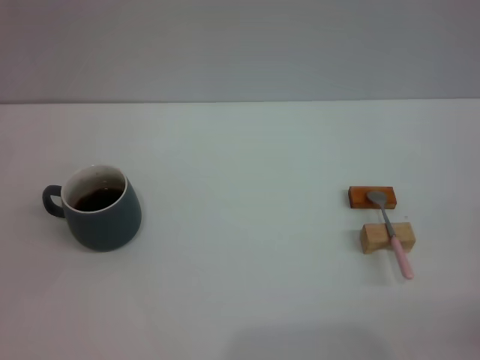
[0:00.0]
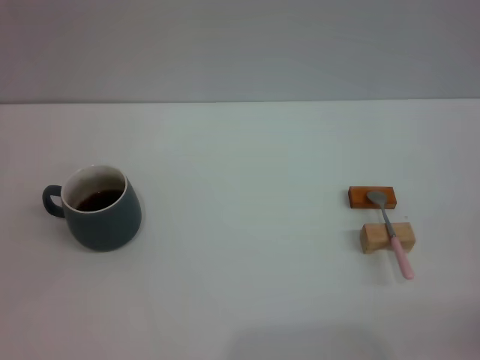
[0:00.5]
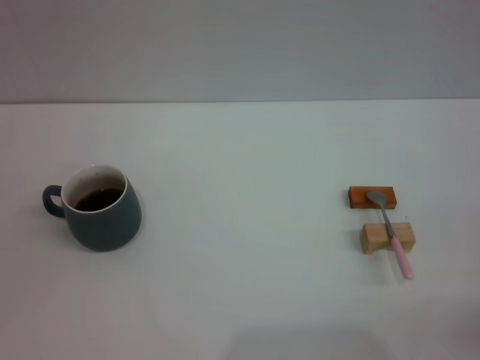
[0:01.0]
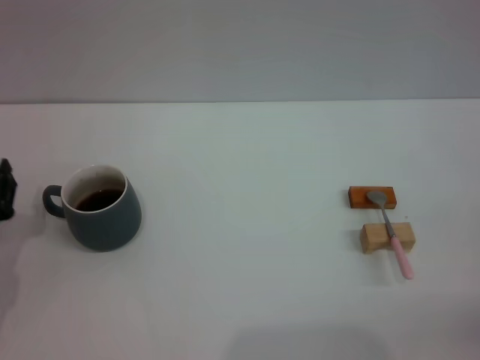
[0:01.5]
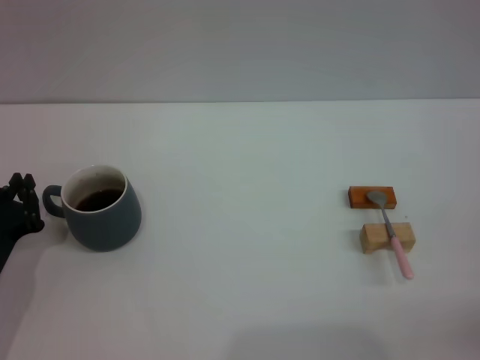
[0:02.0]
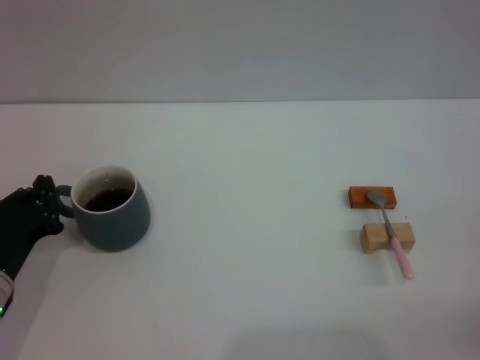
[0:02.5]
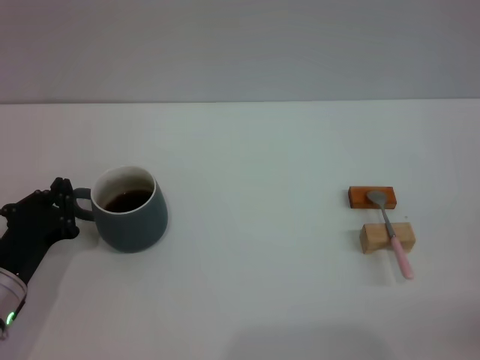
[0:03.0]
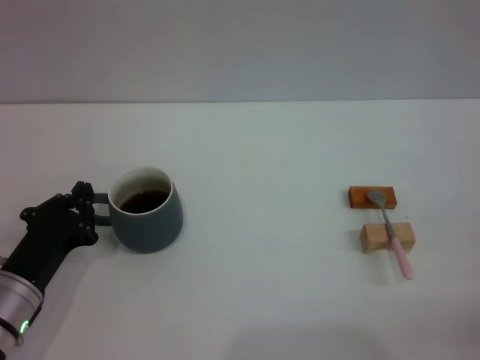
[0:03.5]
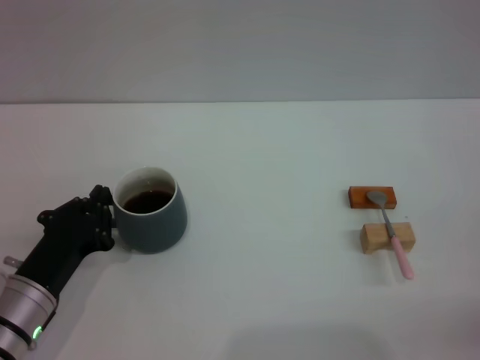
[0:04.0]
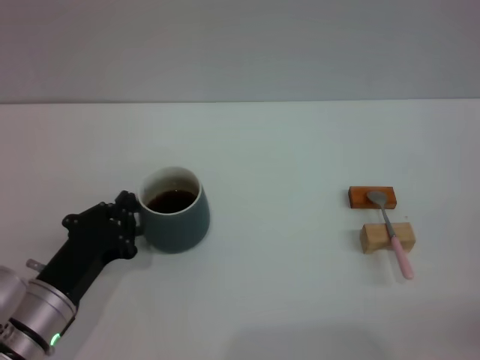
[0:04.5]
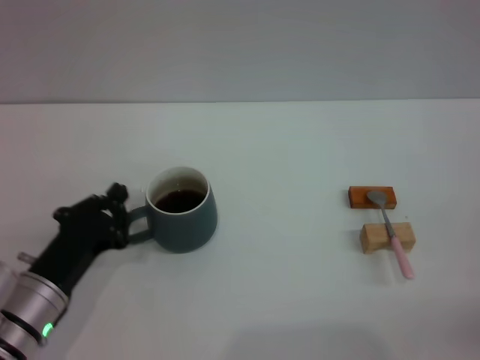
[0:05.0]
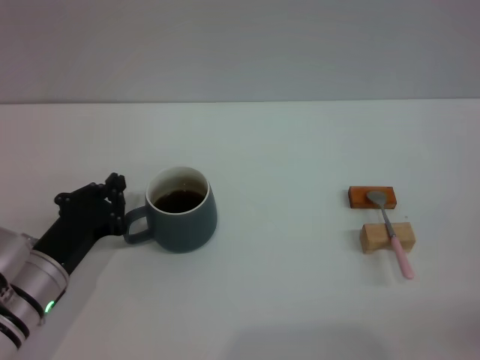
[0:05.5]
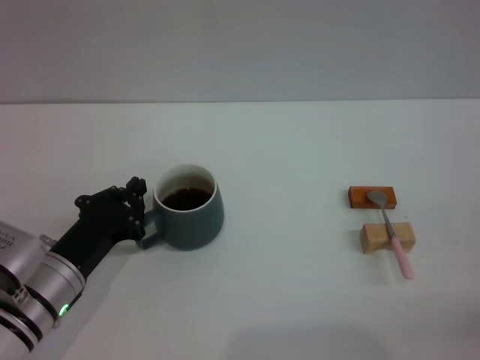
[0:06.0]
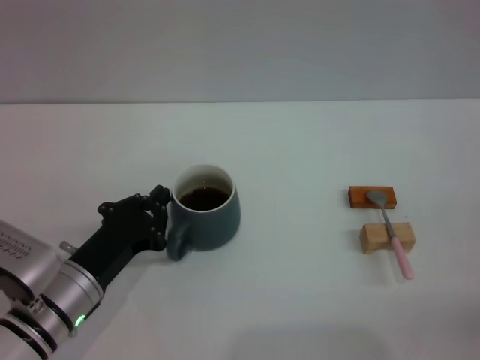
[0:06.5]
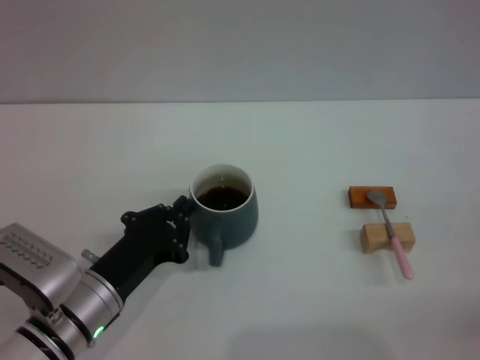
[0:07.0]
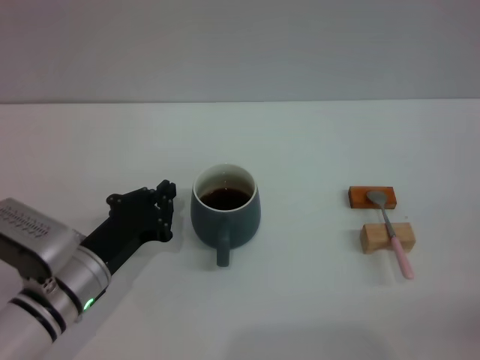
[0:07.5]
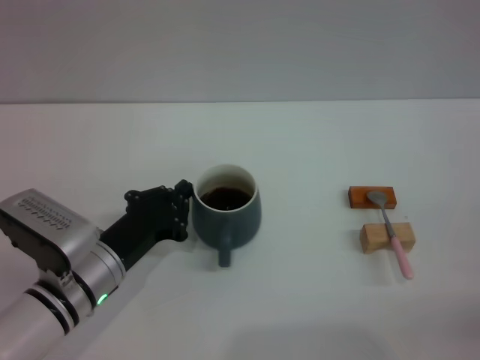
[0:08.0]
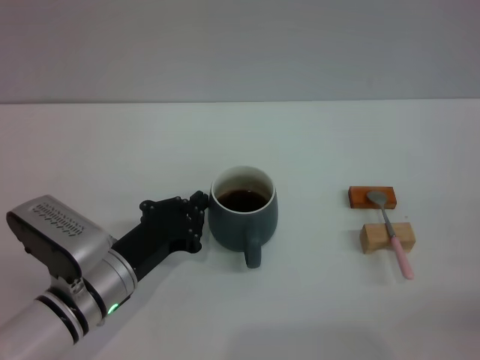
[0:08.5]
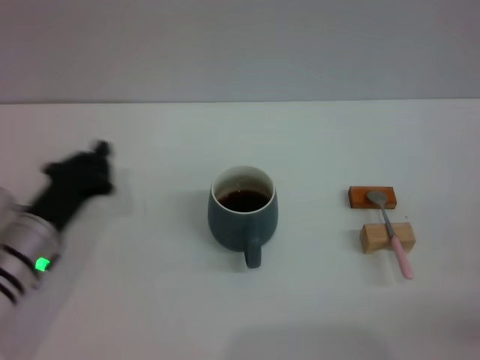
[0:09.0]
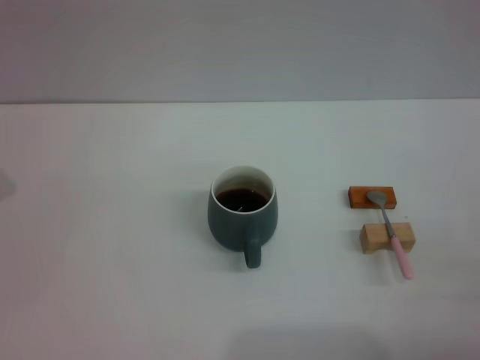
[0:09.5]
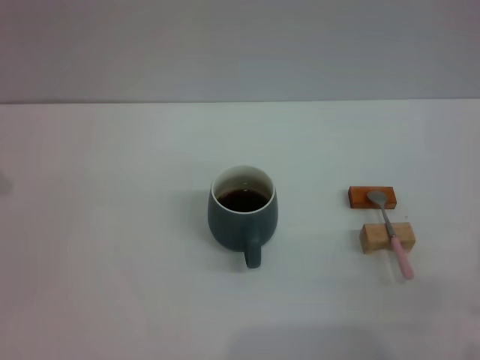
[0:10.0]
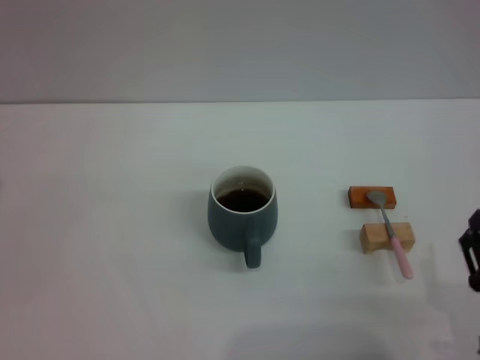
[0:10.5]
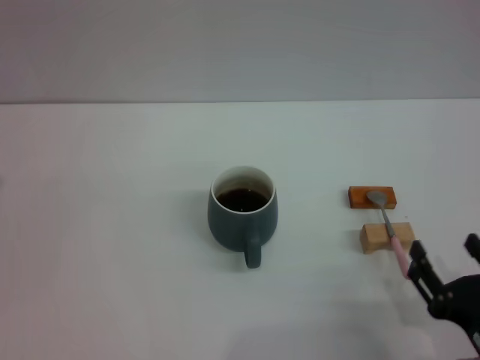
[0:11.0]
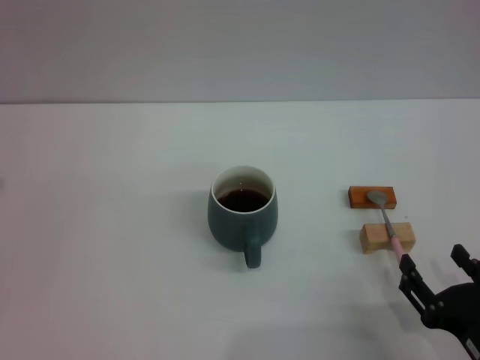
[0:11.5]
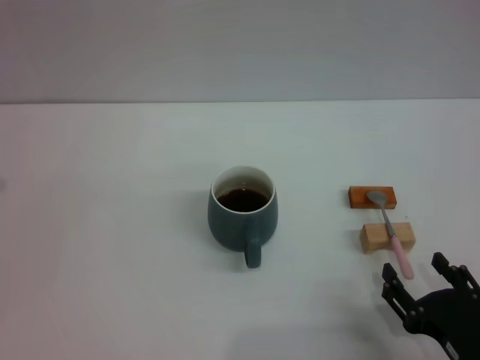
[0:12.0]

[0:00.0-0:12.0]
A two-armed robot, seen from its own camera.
Task of the whole recording: Move the grey cup to the center, lift the pink spoon, stir it three times in the cup, and put the spoon into the cup.
Step, 0.0 to 8.5 s: Move the cup with coffee to the center of view with the left gripper.
0.0 to 2.0 s: The left gripper goes some 10 cm to the right and downward, and closes up.
2.0 to 4.0 s: The left gripper moves to the right, approximately 5 cm.
4.0 to 6.0 s: The grippers make only small movements.
6.0 to 8.0 s: The grippers stay close to where they were, moving slightly.
8.0 to 10.0 s: The left gripper goes some 15 cm to the left. Meanwhile the right gripper heads to the left and backward, covering approximately 15 cm.

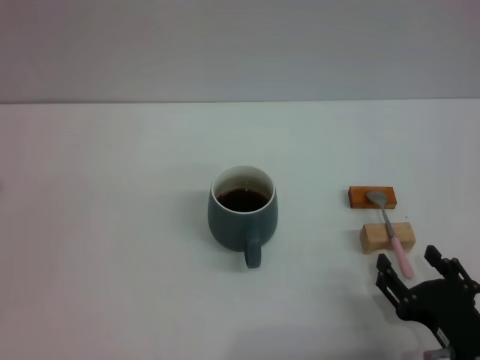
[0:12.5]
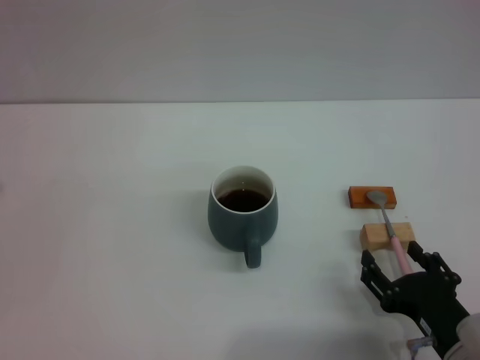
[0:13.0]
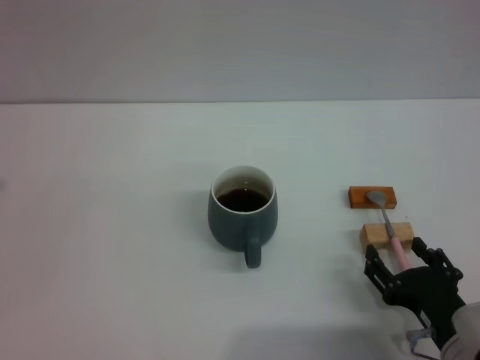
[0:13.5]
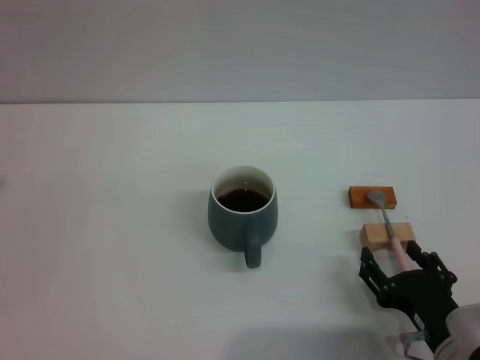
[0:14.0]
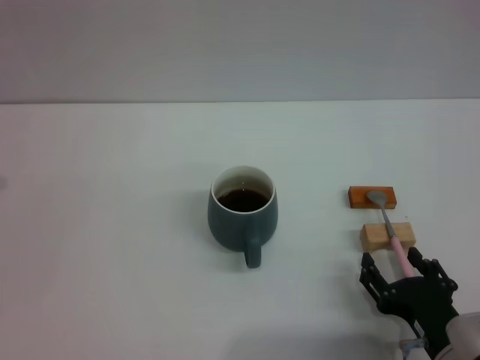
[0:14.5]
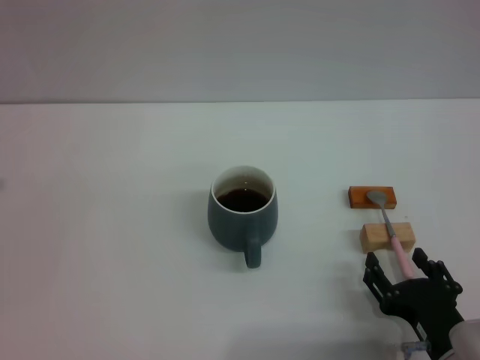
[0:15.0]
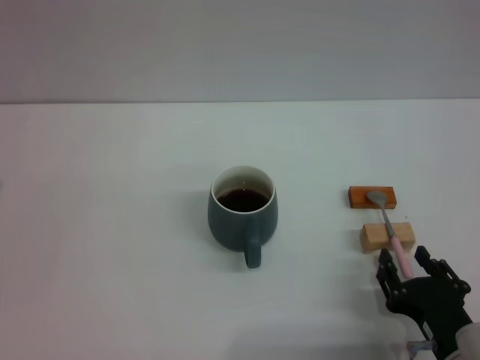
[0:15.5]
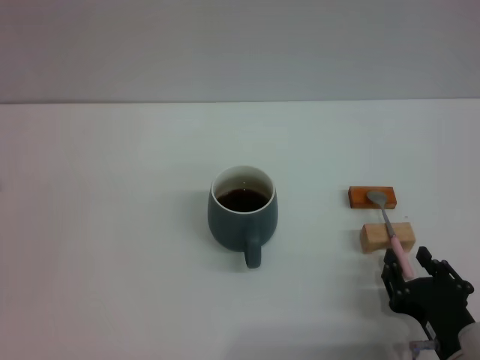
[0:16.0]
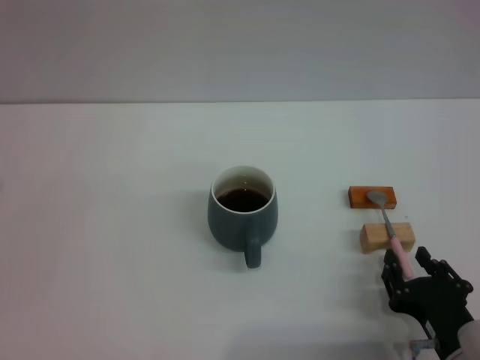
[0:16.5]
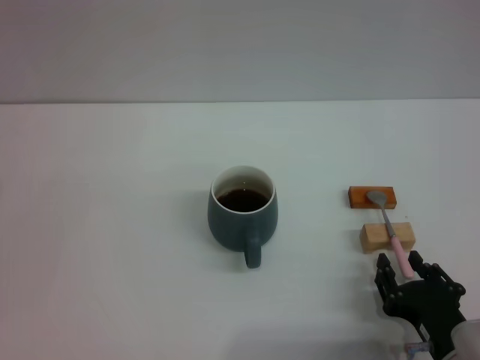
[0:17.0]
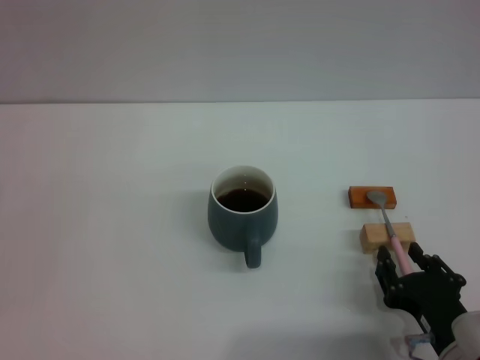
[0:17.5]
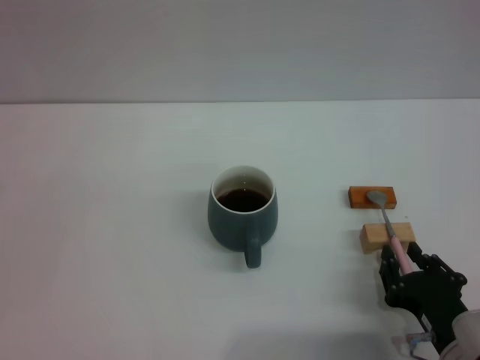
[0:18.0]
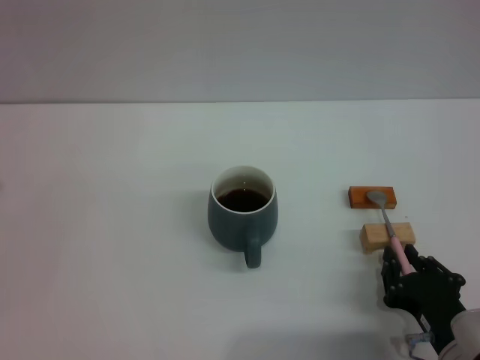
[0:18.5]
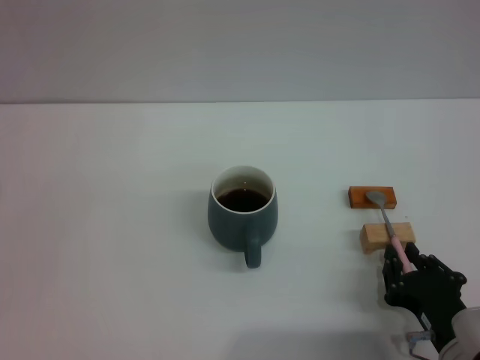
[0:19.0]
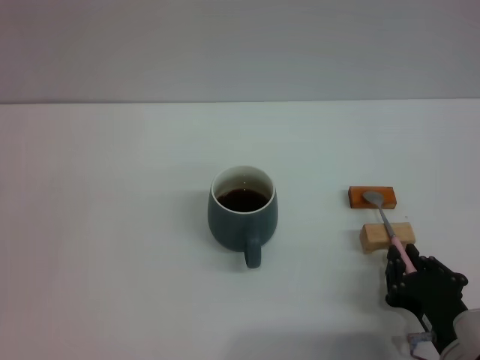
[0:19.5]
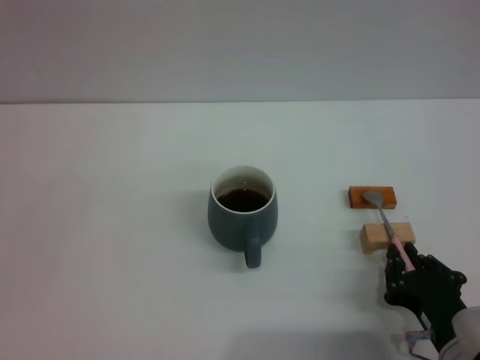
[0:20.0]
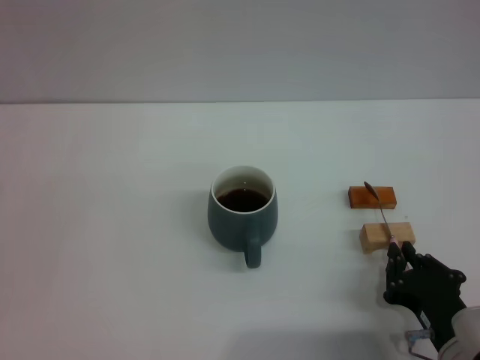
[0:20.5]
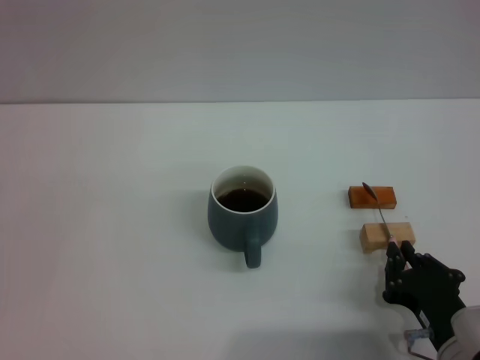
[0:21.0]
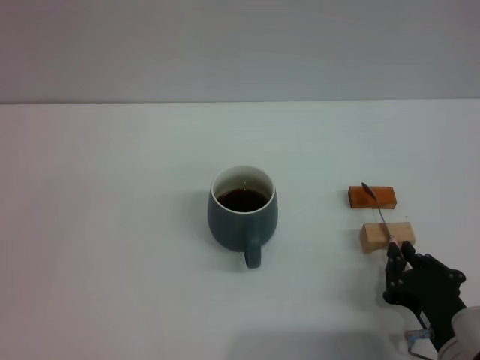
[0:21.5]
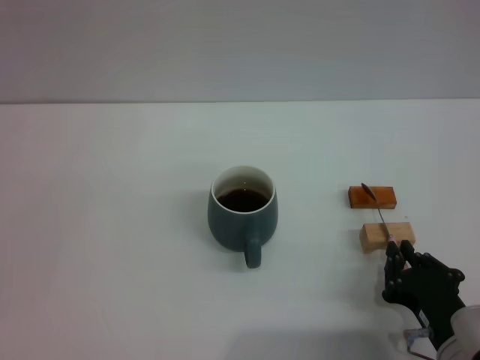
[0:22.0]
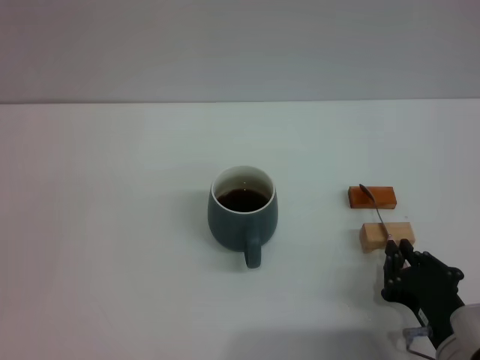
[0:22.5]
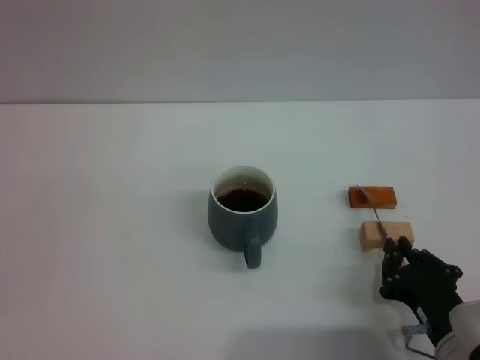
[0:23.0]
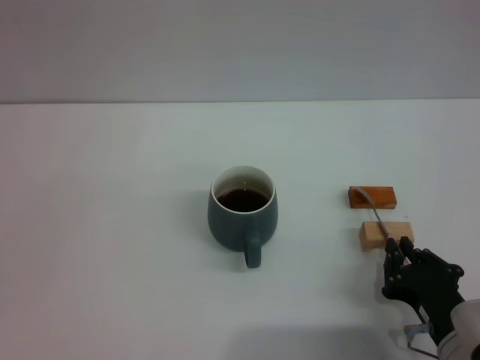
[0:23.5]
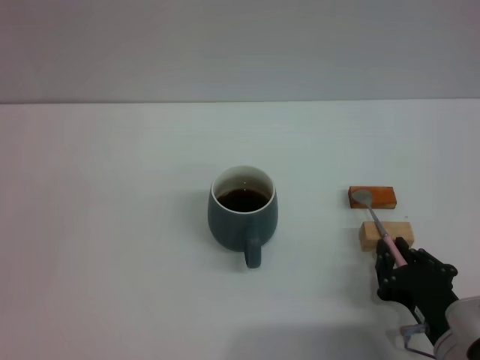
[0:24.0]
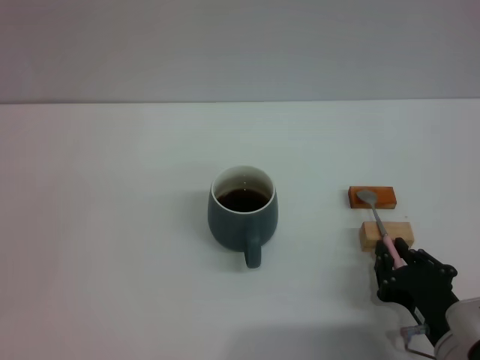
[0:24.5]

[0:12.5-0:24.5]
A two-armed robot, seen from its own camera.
Task of the whole recording: Move the grey cup to the center, lift the pink spoon, stir it three times in the cup, and put the spoon into the cup.
12.5 to 14.5 s: The grippers make only small movements.
14.5 to 16.5 s: The right gripper closes.
16.5 to 18.5 s: Both grippers stay put.
18.5 to 20.5 s: The right gripper closes.
20.5 to 24.5 s: Both grippers stay about where they are.

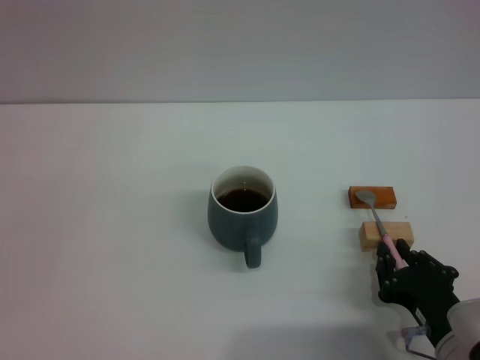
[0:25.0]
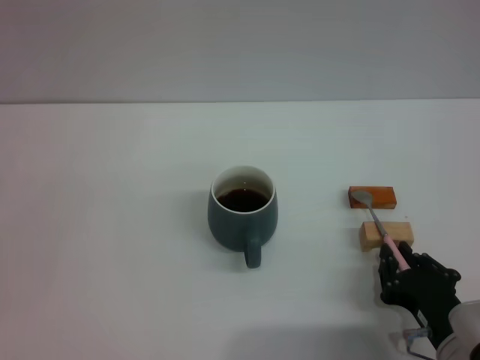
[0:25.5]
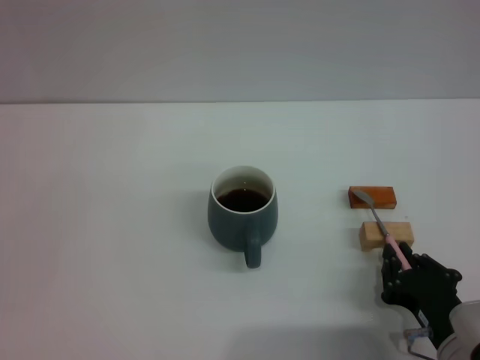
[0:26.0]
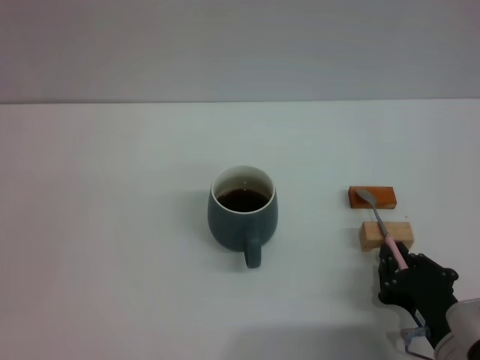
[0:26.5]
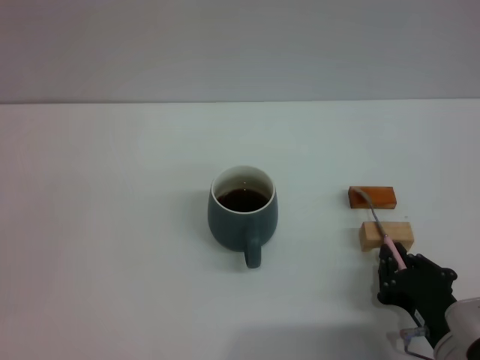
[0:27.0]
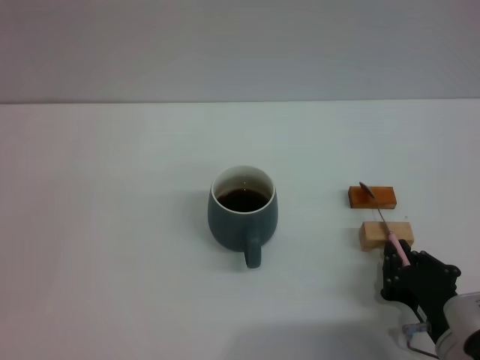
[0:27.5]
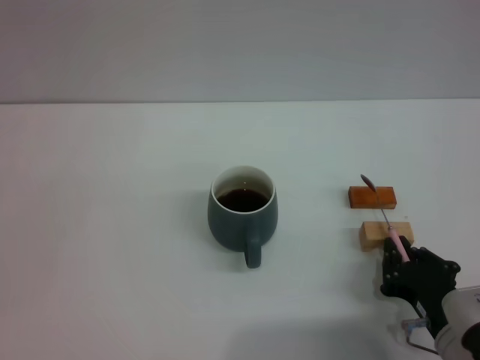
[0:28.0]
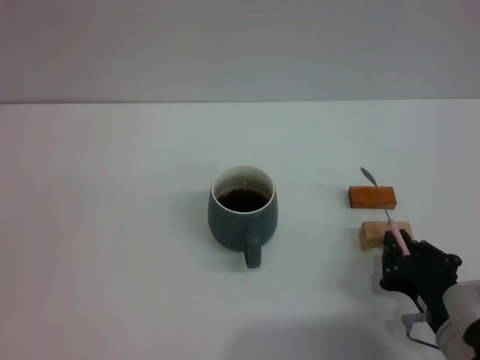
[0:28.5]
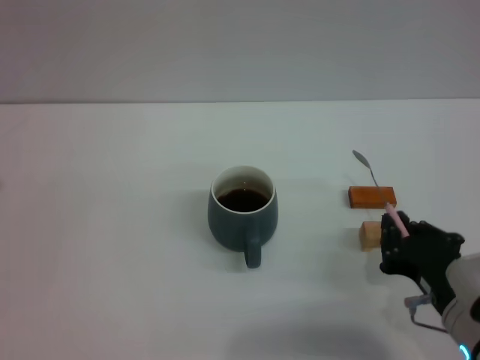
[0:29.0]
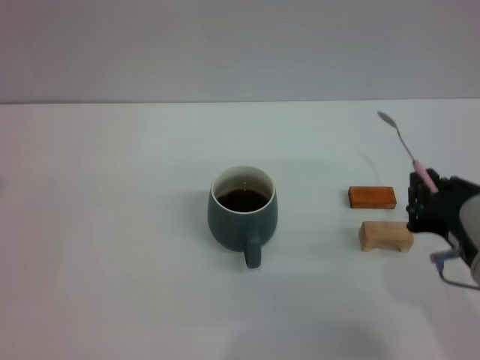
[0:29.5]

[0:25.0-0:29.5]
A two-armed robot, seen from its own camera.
Task of the whole recording: Move the grey cup to the center, lift the pink spoon, stir it three times in the cup, and put the spoon into the cup.
25.0 to 27.0 s: Both grippers stay put.
27.0 to 29.5 s: The right gripper heads upward, covering some 10 cm.
